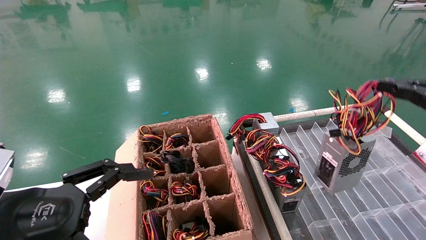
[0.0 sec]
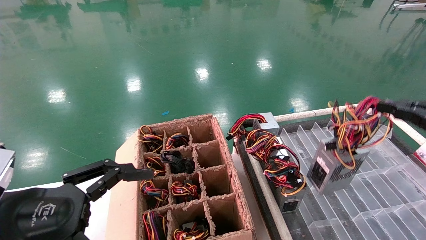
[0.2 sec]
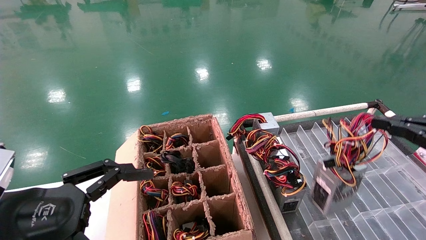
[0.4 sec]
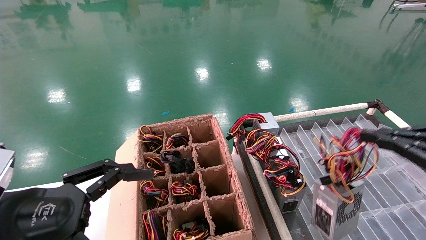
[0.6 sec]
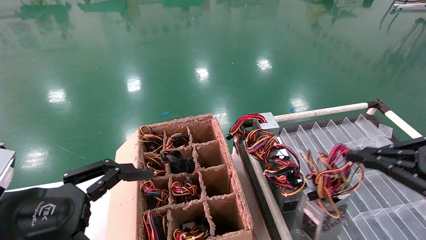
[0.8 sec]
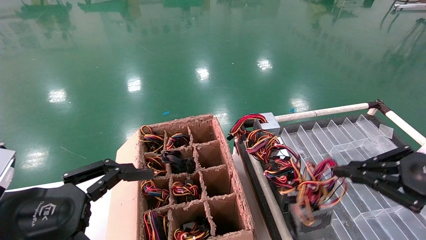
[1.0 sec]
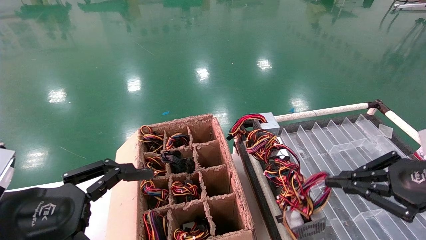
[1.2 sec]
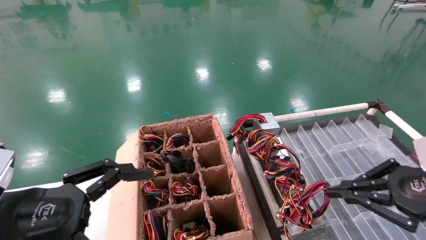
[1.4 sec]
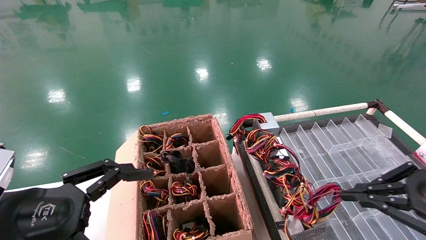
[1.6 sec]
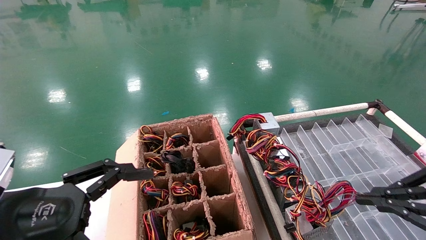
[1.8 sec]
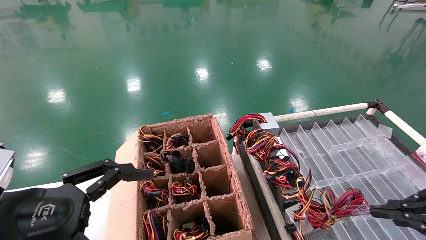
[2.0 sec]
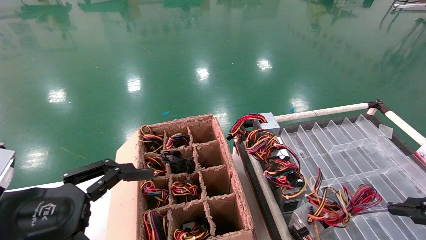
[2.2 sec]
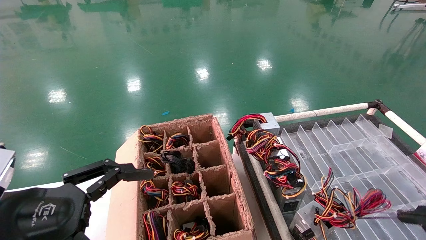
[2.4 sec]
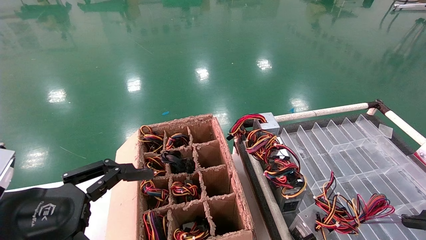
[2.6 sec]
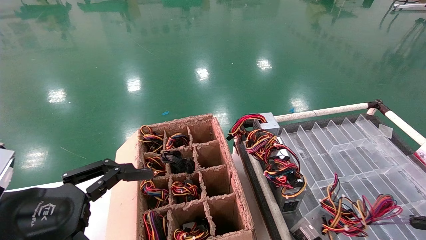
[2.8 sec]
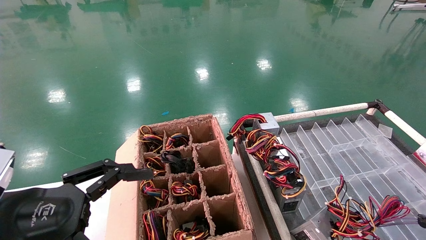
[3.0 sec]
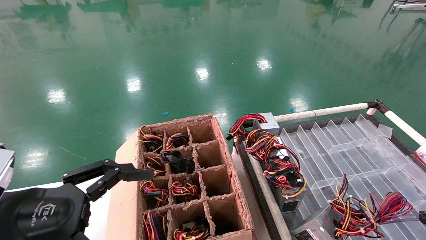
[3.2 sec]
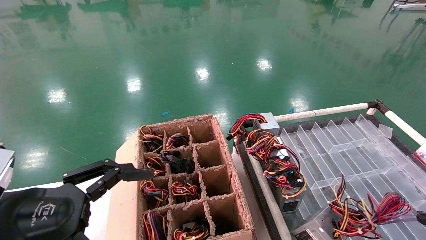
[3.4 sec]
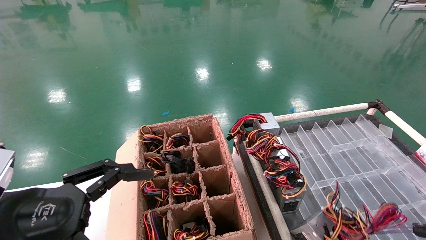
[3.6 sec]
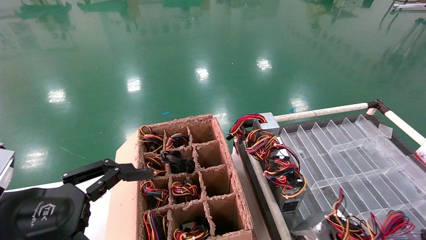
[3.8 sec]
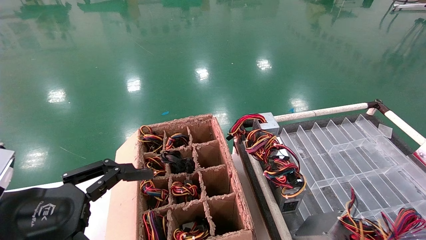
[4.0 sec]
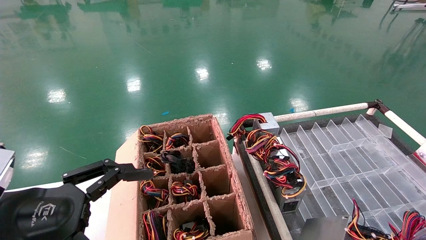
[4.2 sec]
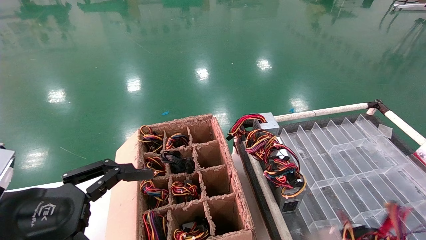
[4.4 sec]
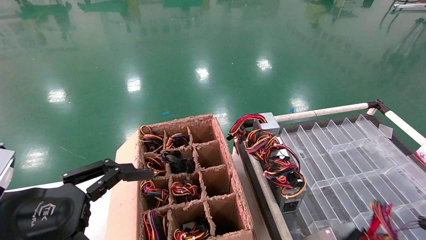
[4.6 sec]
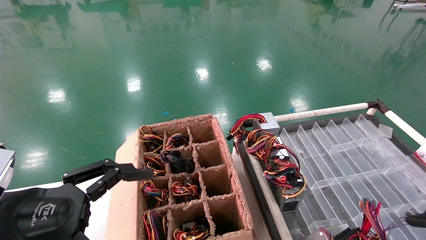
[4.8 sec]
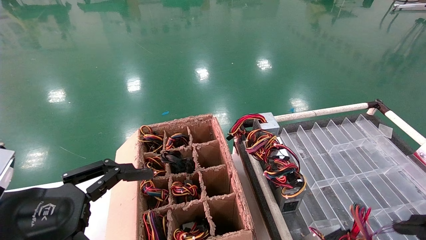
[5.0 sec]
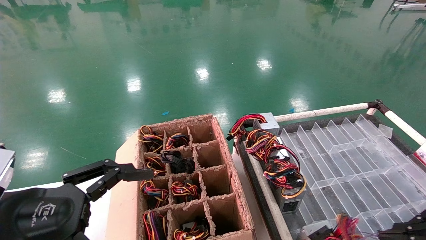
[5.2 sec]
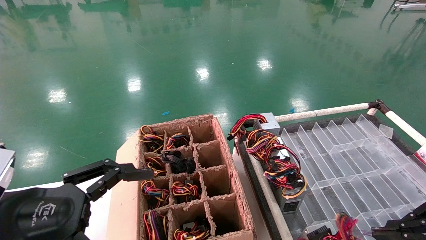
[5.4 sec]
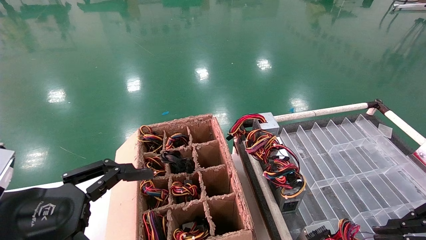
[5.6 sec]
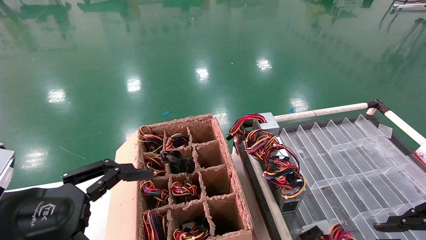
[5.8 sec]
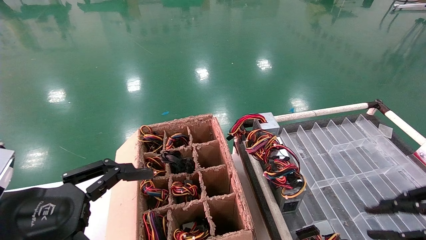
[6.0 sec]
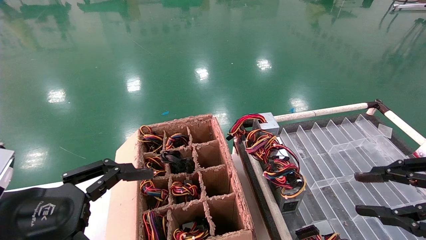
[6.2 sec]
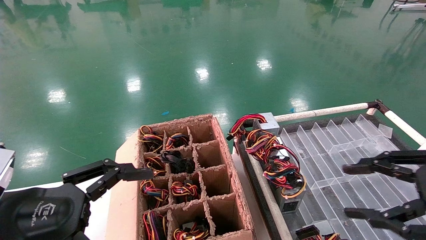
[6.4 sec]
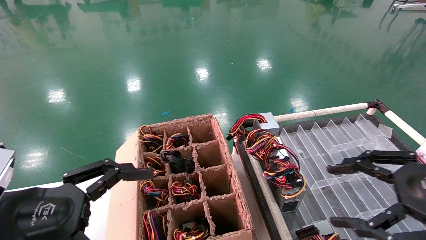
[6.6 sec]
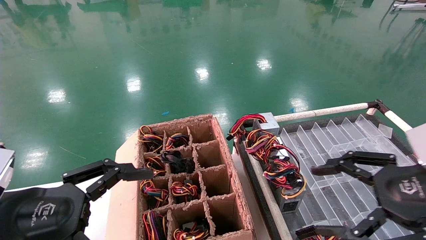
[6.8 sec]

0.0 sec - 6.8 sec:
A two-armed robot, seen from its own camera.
Step, 0.0 sec - 5.8 sec: Place the power supply on the operating table.
0.0 sec - 1.4 sec: The right gripper heads downward and to the left, covering roughly 10 cm.
1.4 sec - 2.8 sec: The right gripper is displaced backward and to the right by about 10 cm.
2.8 sec - 4.0 sec: The grippers move only a little.
4.0 sec - 5.4 sec: The right gripper heads forward, covering approximately 10 cm.
5.4 sec - 6.8 sec: The right gripper goes approximately 10 cm to the left, and opens up.

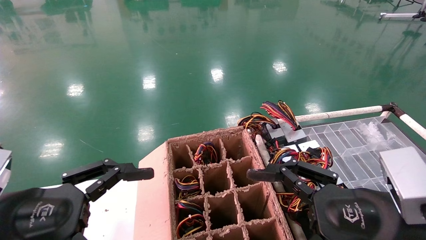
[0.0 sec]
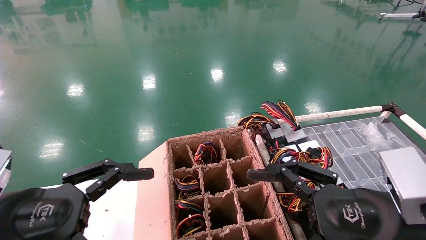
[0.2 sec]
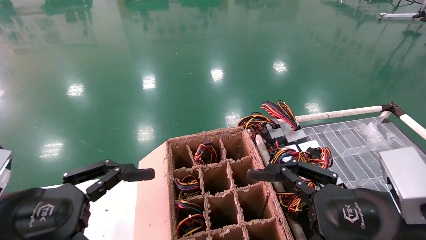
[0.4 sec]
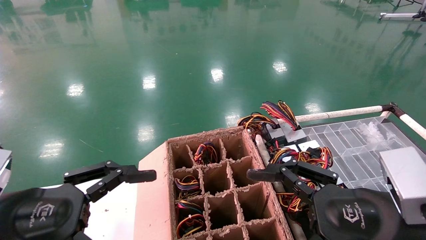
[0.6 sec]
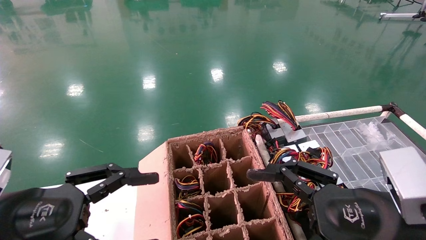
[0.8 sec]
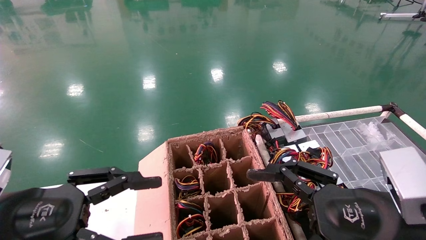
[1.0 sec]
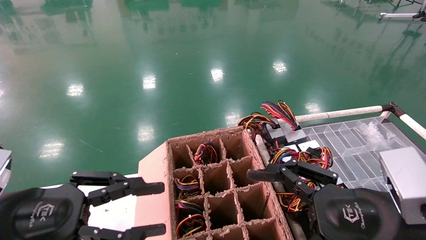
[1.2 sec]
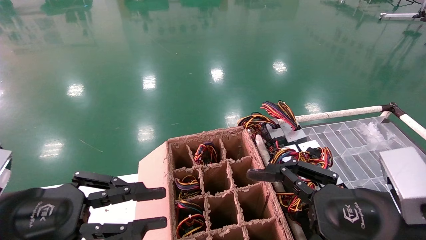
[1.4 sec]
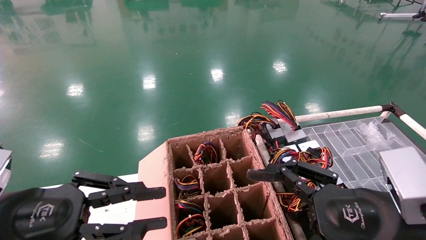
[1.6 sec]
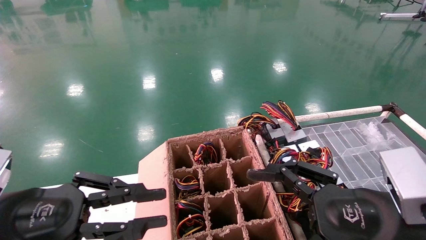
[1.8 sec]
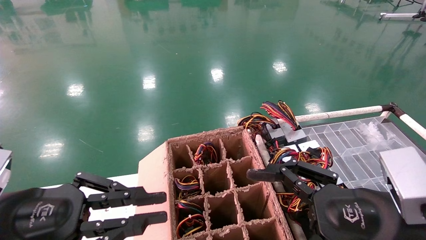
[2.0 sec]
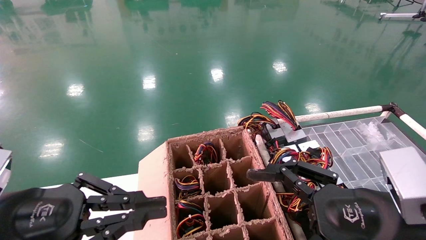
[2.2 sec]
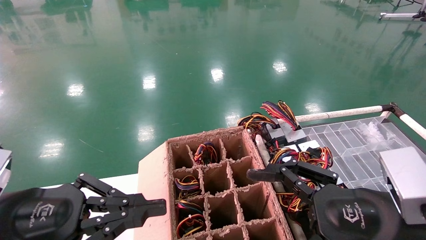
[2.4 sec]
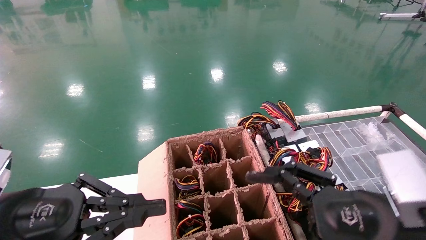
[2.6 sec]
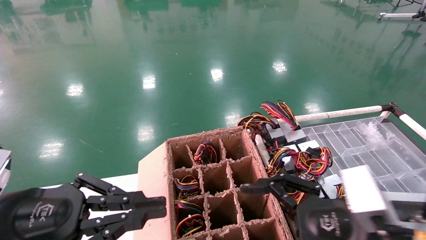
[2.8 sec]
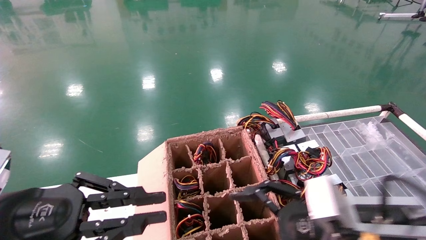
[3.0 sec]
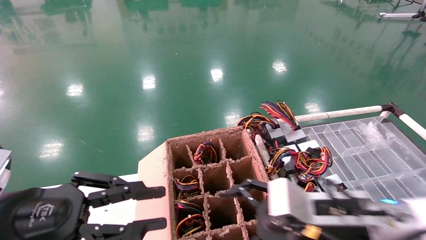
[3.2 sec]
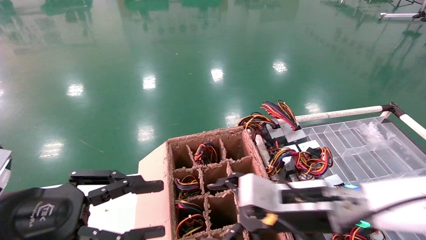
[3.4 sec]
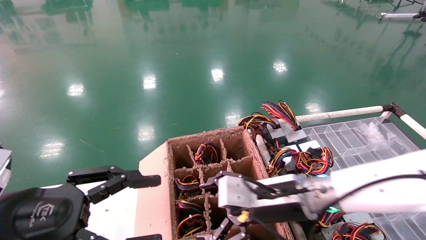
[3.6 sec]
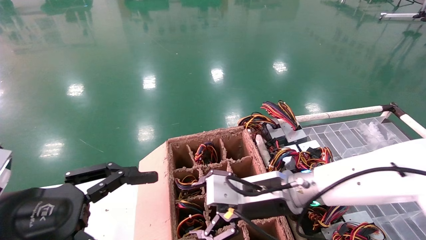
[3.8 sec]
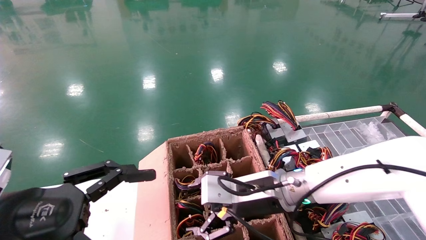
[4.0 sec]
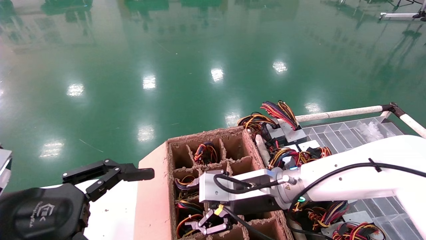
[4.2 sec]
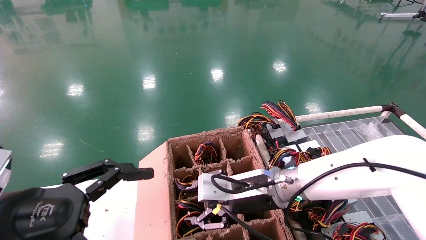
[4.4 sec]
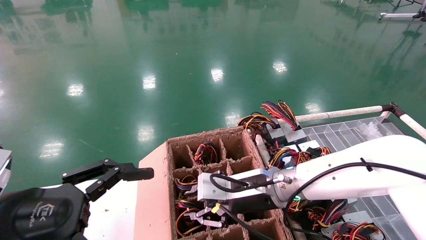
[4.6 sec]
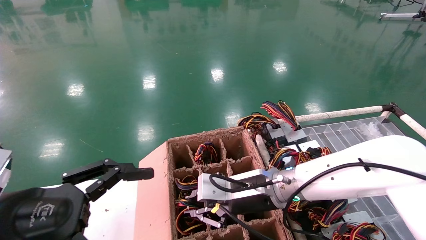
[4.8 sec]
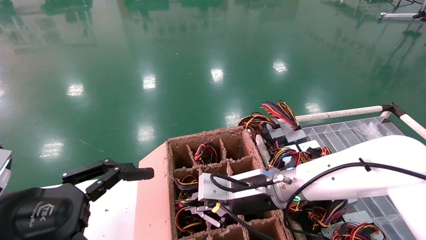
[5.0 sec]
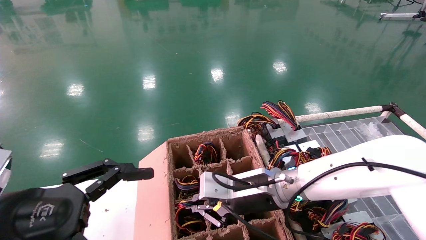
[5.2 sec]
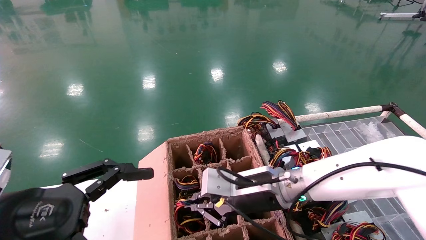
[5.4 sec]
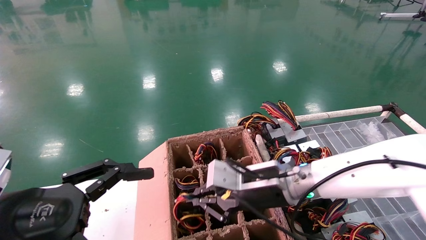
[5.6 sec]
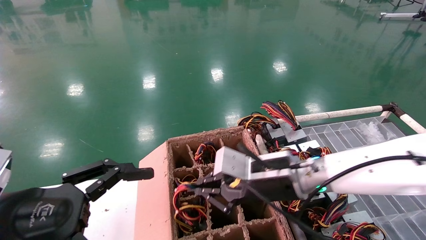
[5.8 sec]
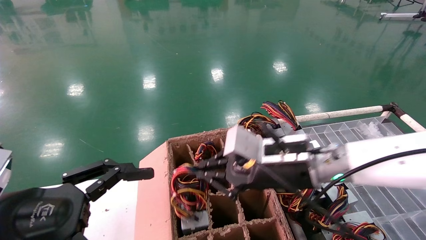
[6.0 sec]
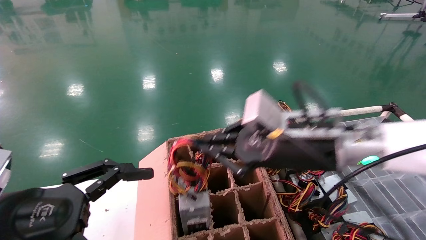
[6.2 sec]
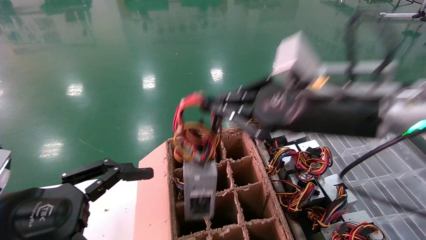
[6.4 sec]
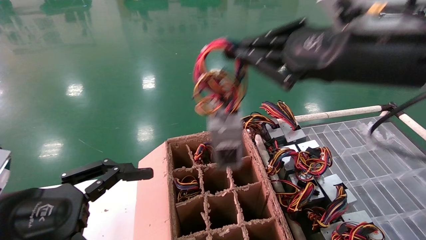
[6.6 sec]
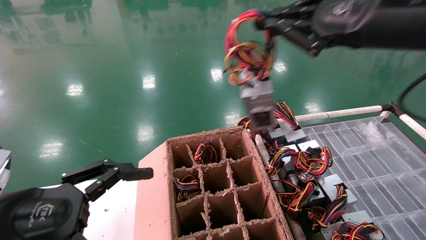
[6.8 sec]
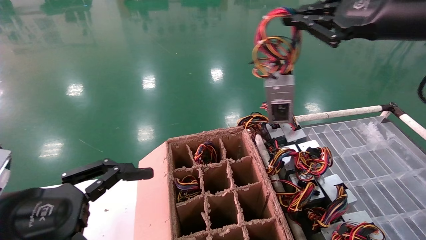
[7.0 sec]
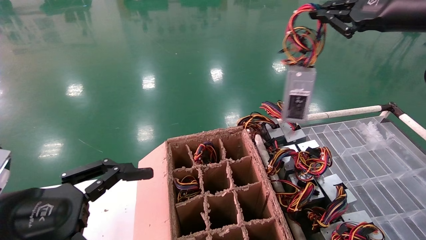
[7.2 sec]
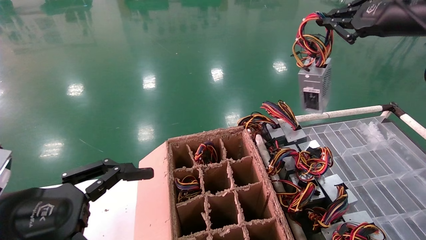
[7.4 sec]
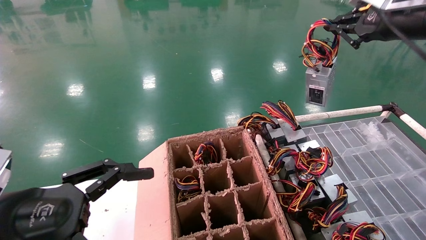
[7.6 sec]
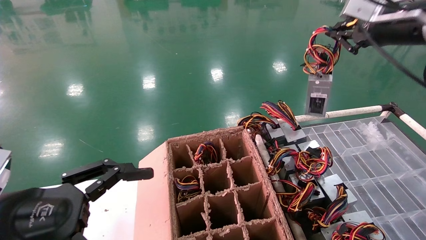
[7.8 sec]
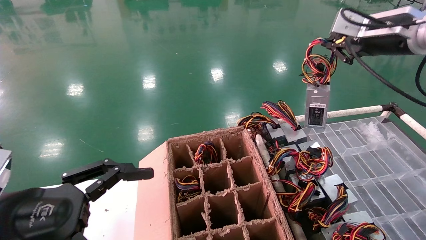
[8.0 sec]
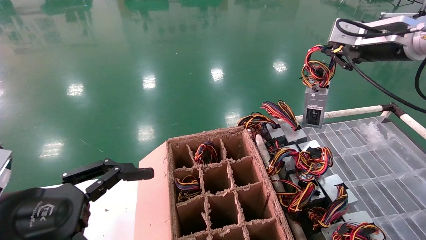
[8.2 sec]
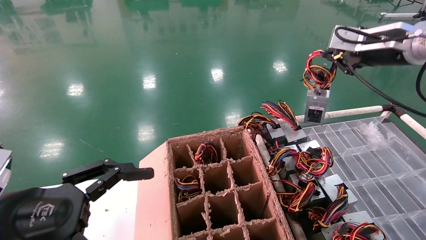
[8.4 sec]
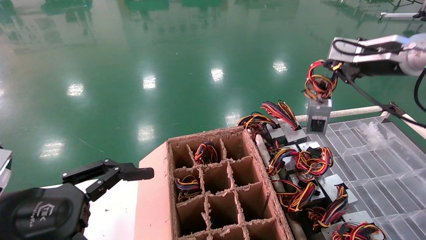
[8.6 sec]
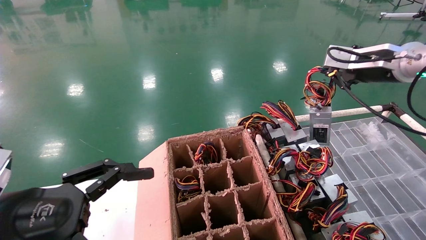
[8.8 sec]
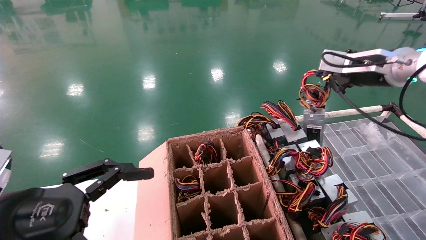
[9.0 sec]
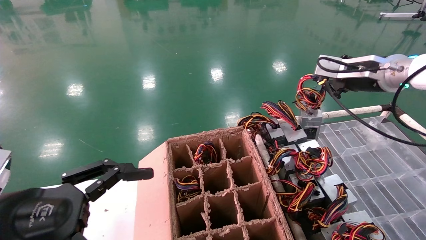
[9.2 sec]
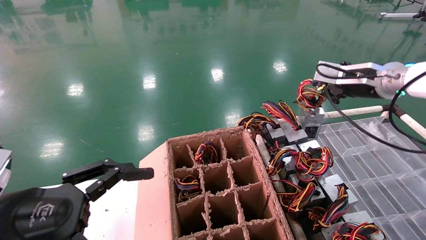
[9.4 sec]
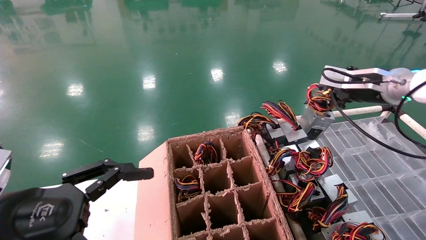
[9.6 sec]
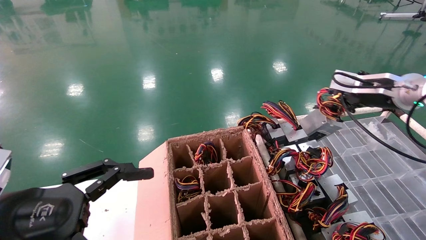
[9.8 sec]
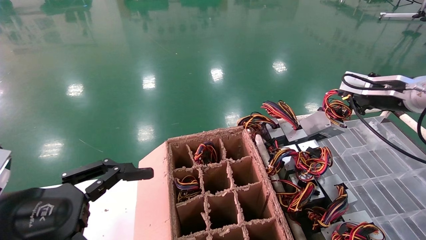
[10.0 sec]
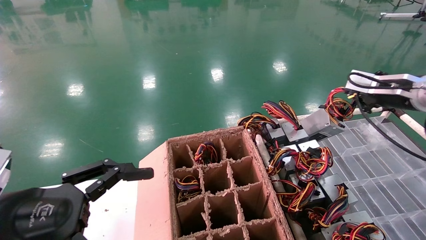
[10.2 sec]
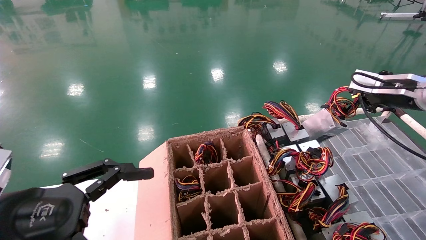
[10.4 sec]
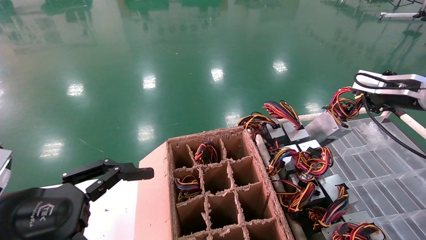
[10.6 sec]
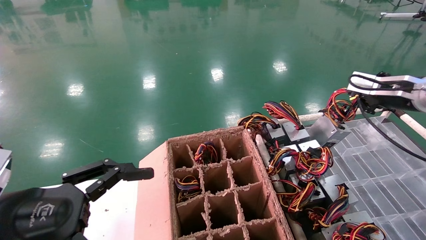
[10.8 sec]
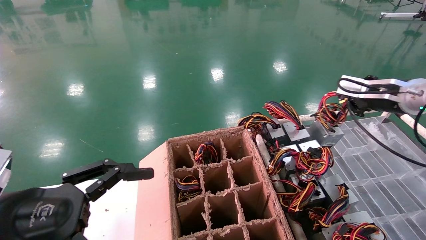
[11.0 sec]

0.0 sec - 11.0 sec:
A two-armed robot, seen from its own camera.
Step, 2.6 sec - 5.2 sec: Grab and lift the power supply from the large box.
0.0 sec - 1.6 sec: The left gripper closes its fingers.
1.6 sec - 3.2 sec: The right gripper travels forward and to the left by approximately 10 cm.
3.2 sec - 4.8 sec: The right gripper heads forward and to the left, covering roughly 15 cm, and closes its fingers. Meanwhile the left gripper opens its fingers.
4.8 sec - 6.2 sec: The right gripper travels upward, backward and to the right by roughly 15 cm.
6.2 sec - 7.8 sec: The right gripper goes about 25 cm to the right, upward and forward.
7.8 sec - 9.4 sec: The right gripper is displaced downward and forward by about 10 cm.
9.4 sec - 11.0 sec: The right gripper shifts by about 5 cm.
